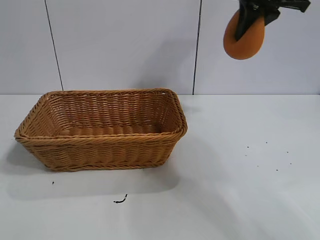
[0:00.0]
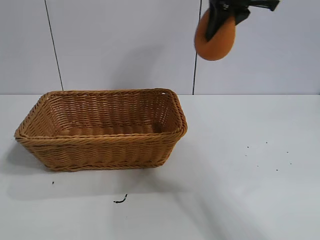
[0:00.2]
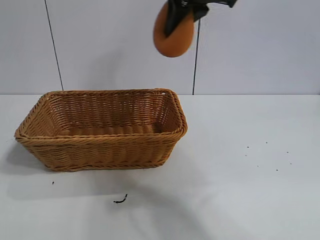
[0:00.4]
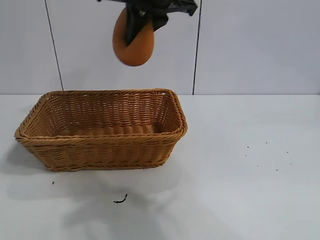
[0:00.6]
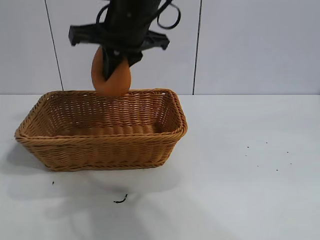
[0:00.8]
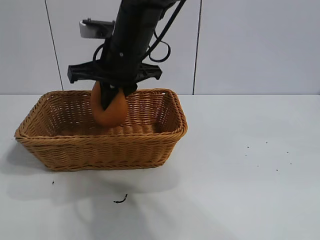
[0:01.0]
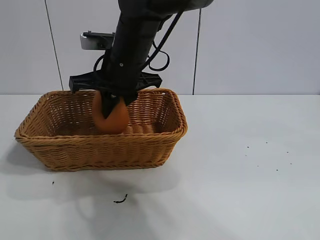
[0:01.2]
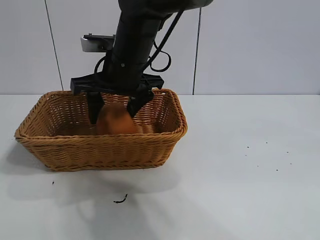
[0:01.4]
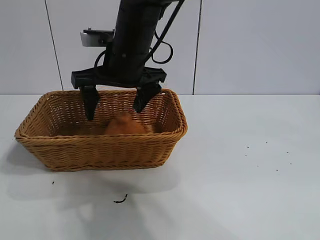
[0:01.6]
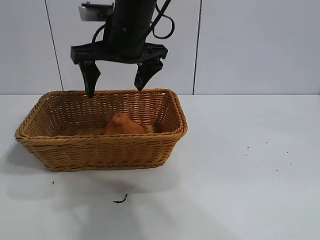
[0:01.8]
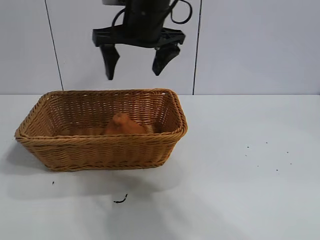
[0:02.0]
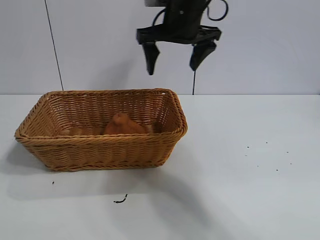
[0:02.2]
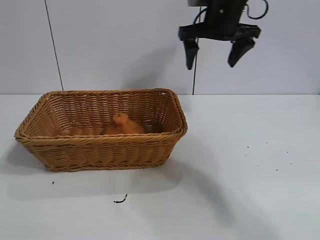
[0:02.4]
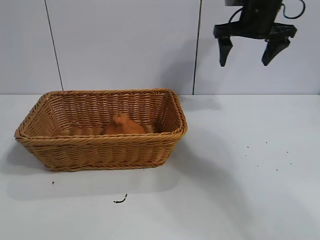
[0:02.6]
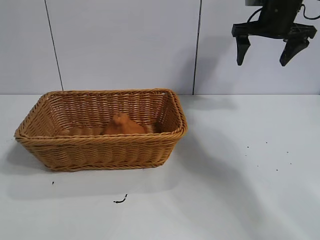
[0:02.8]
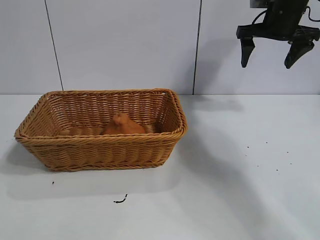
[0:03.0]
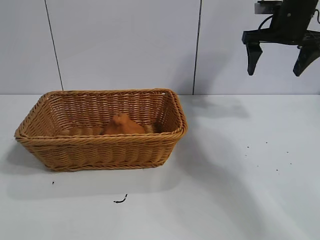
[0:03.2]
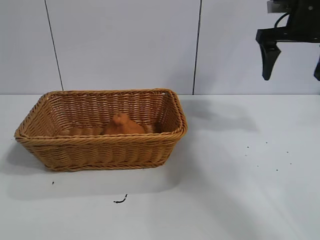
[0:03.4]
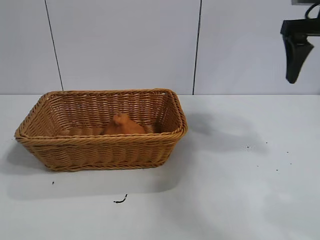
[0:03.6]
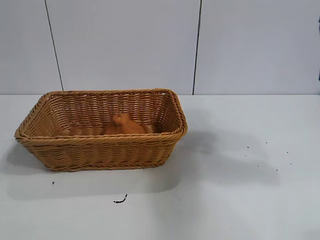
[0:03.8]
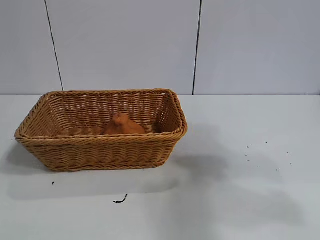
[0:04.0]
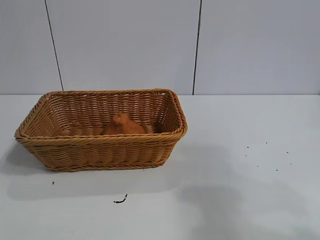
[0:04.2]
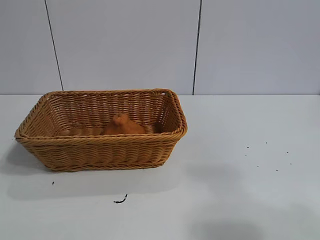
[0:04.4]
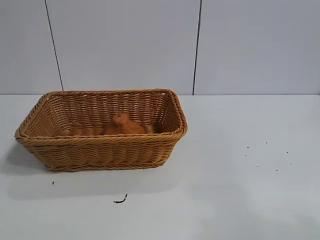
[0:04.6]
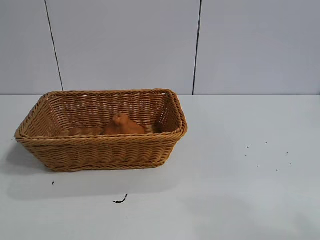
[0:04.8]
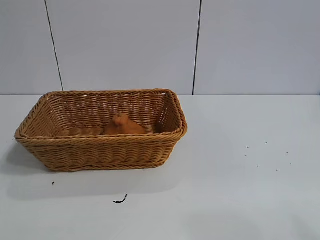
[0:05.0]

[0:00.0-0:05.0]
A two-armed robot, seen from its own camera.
Task of the whole recording: pick up the orange and put it into the basket.
Step, 0:00.0 to 0:01.4: Place the orange in the basket with right gripper.
